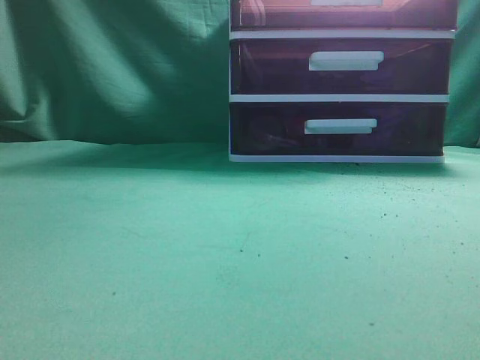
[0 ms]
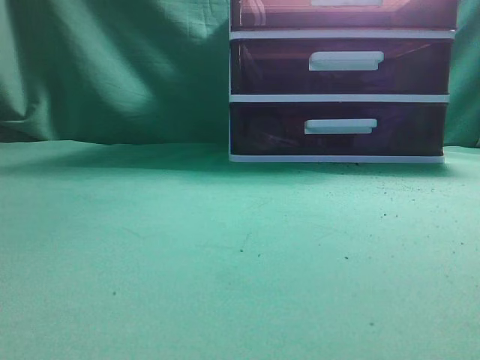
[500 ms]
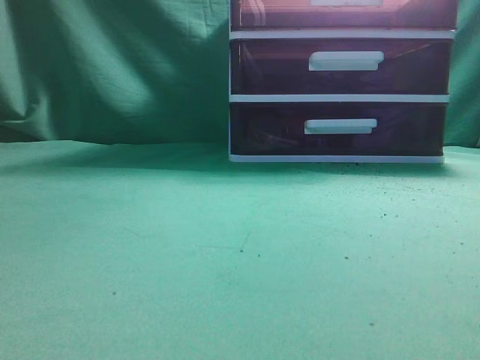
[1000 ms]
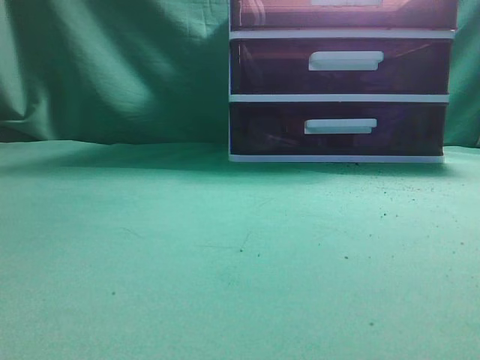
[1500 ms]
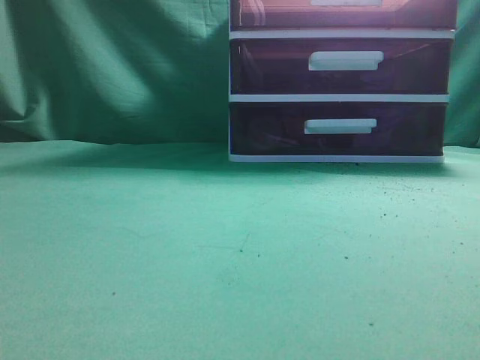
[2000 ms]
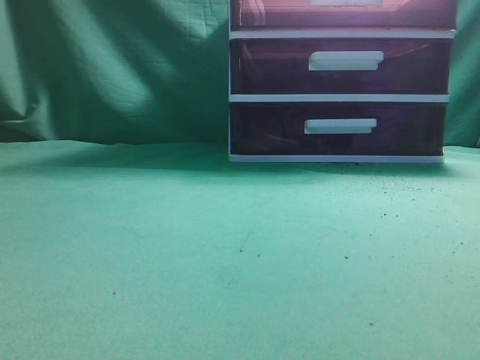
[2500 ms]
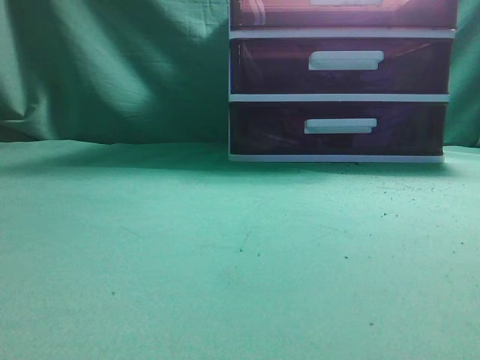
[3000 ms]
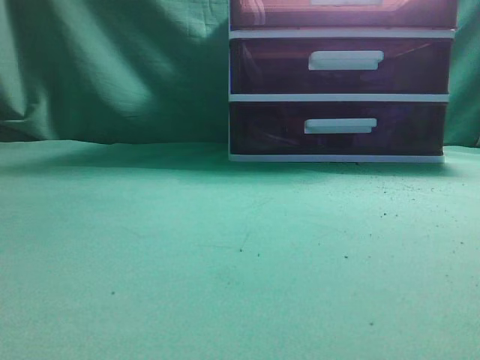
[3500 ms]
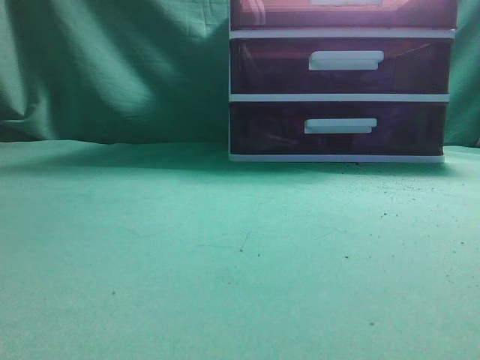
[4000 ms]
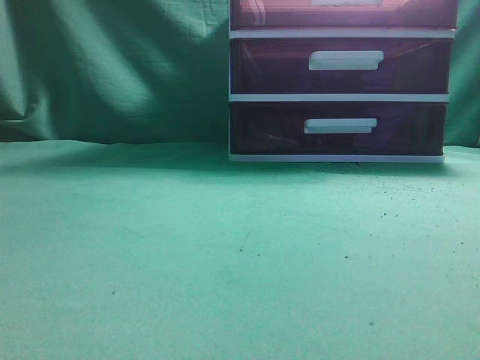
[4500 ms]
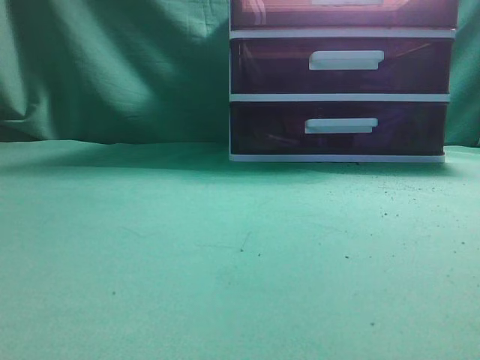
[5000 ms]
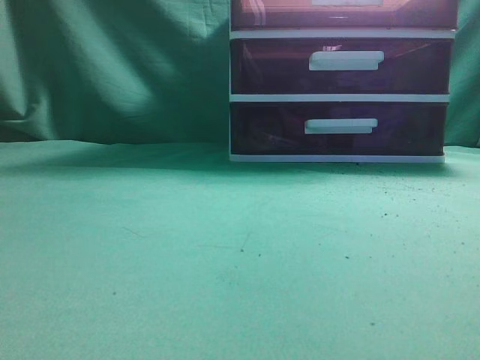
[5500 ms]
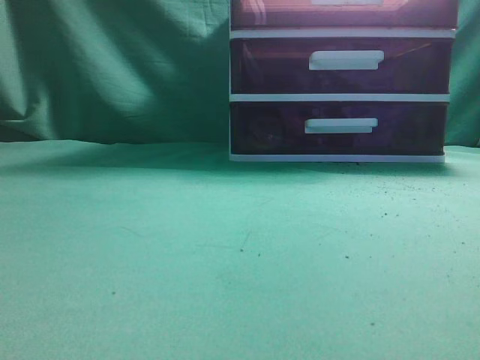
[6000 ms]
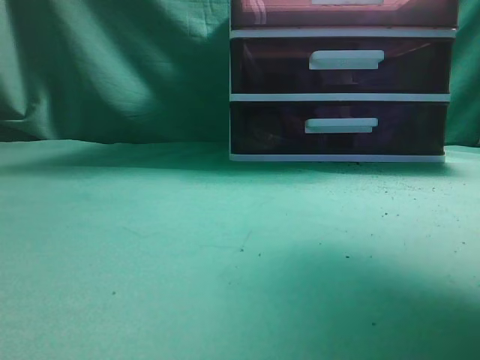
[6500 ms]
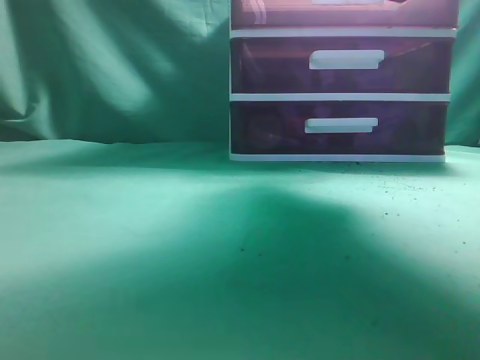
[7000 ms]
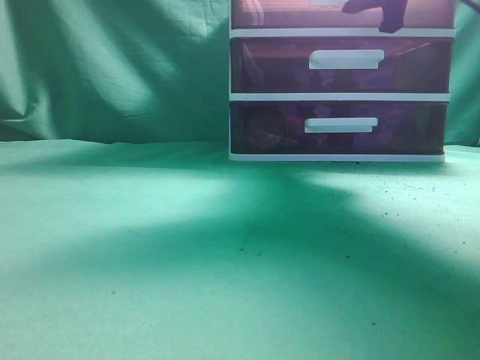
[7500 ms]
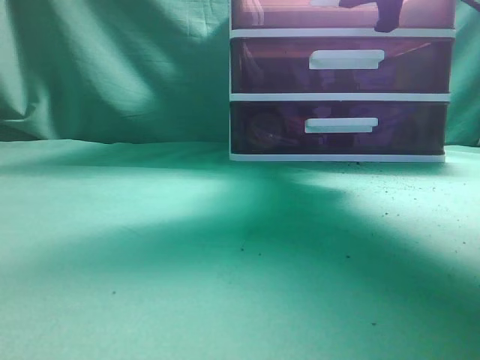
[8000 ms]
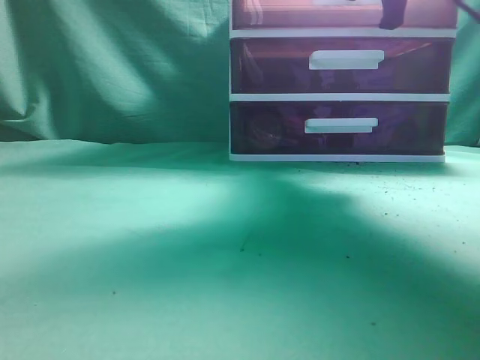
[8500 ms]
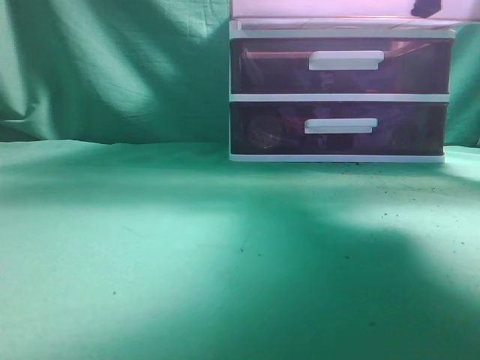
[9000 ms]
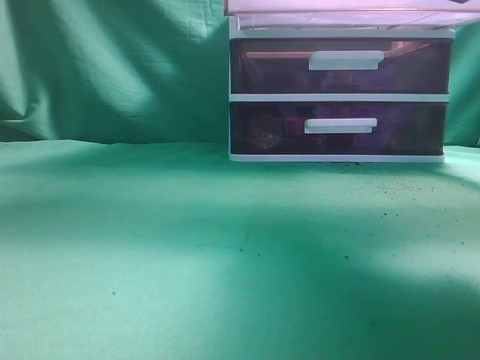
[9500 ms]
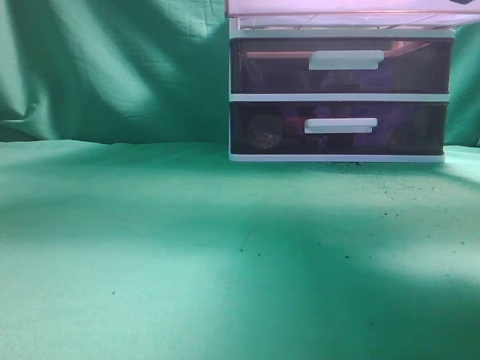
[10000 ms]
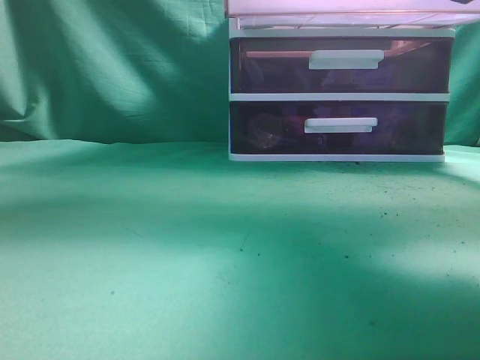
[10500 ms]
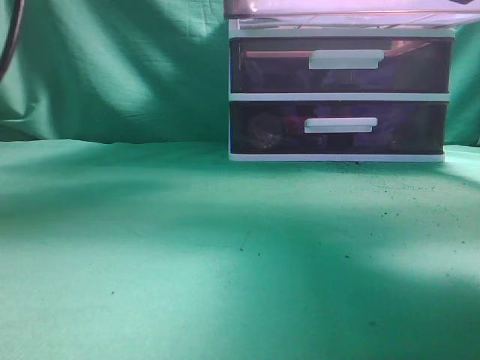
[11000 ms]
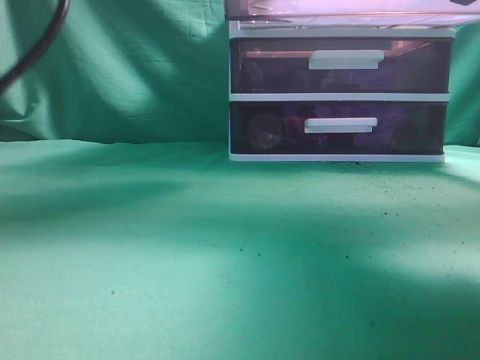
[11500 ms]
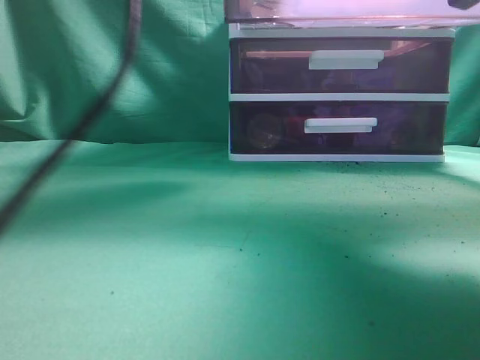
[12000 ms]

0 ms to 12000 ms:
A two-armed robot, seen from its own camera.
Task of the whole recording: place the water bottle into the drawer.
Step, 0 ms to 10000 ms: Open the drawer.
6000 ms to 8000 ms: The right gripper is displaced forward by roughly 30 cm, and opens its fingers.
8000 ms to 10000 ms: The right gripper is displaced backward by approximately 15 cm, while the left gripper travels upward, to the right and forward by roughly 15 cm.
10000 ms to 12000 ms: The left gripper travels forward, to the right and downward by about 30 cm, and opens up.

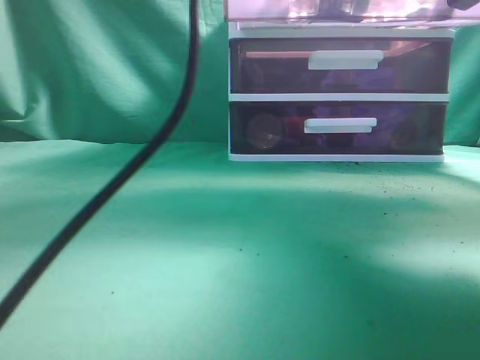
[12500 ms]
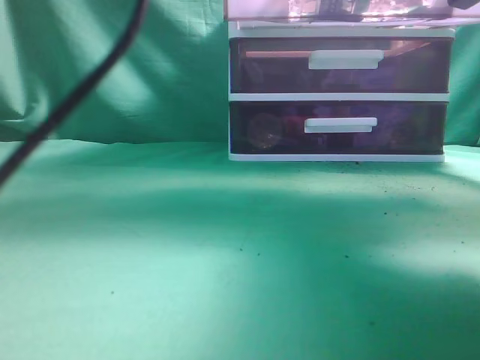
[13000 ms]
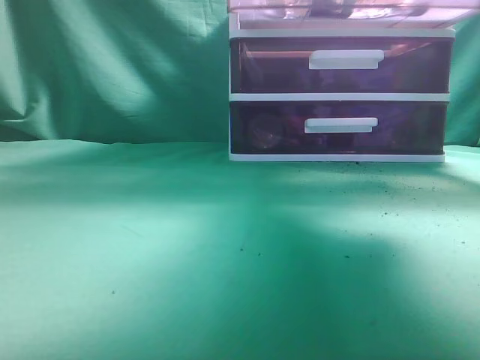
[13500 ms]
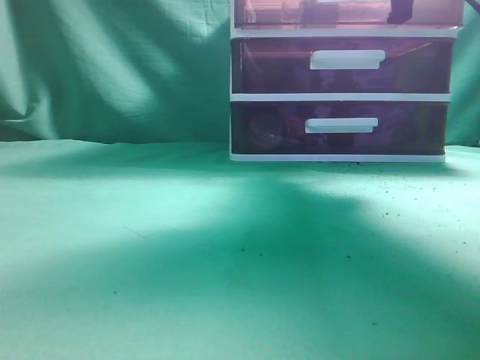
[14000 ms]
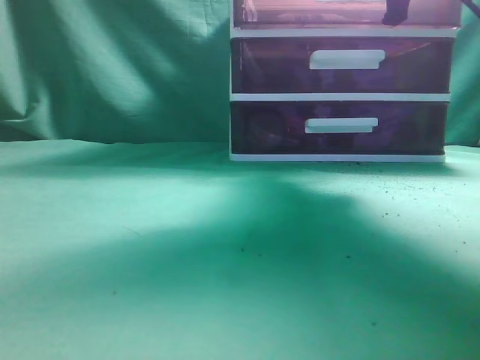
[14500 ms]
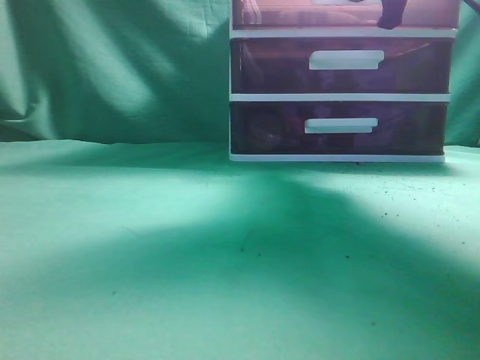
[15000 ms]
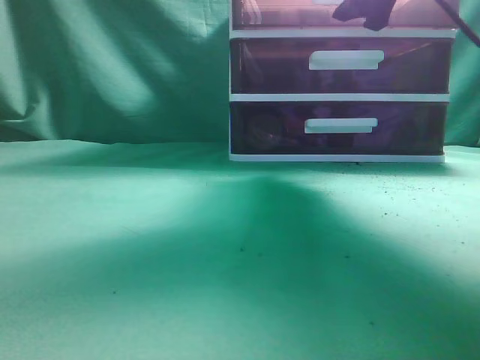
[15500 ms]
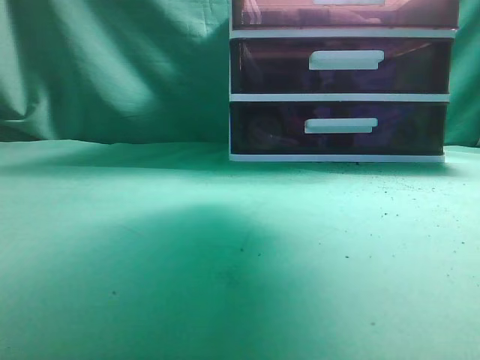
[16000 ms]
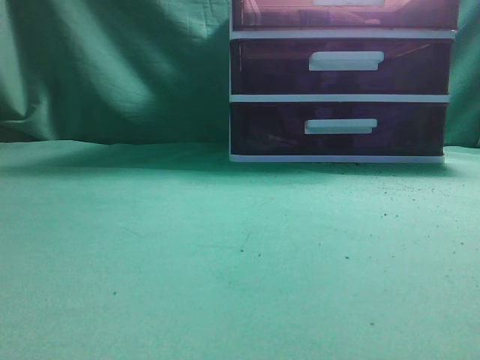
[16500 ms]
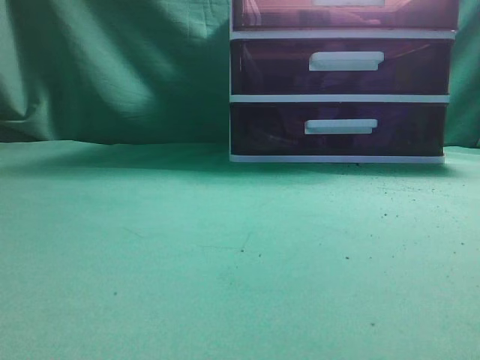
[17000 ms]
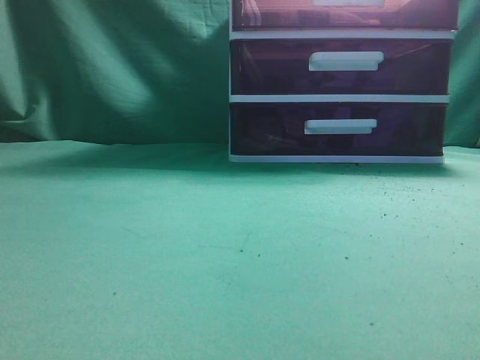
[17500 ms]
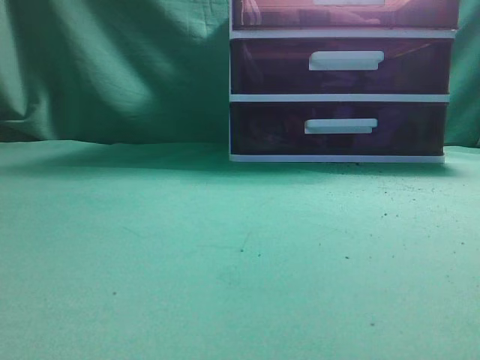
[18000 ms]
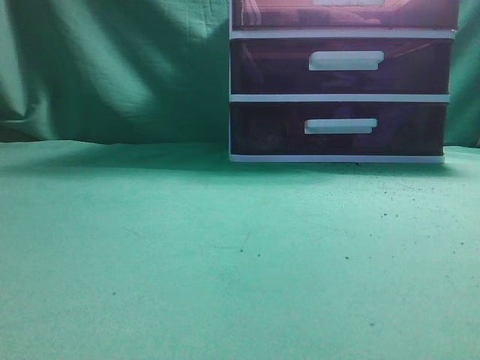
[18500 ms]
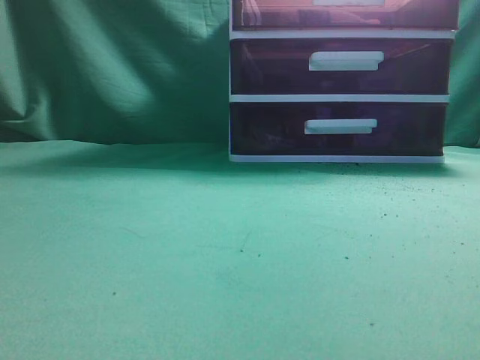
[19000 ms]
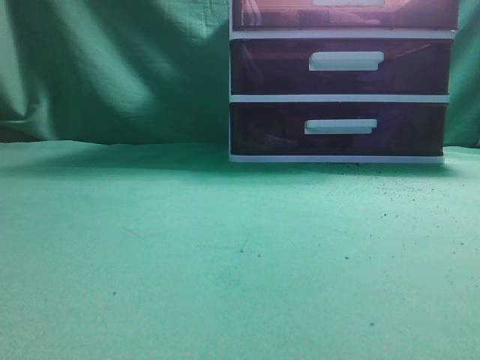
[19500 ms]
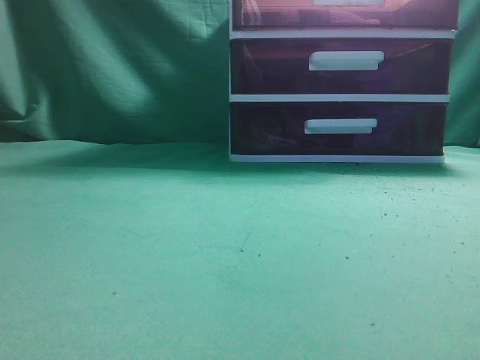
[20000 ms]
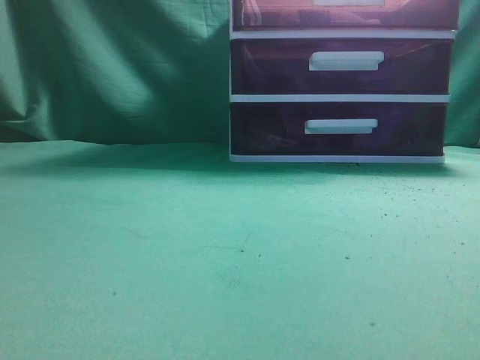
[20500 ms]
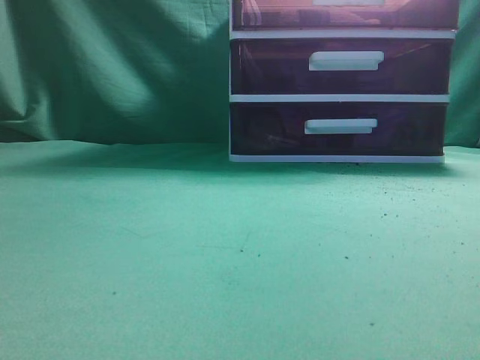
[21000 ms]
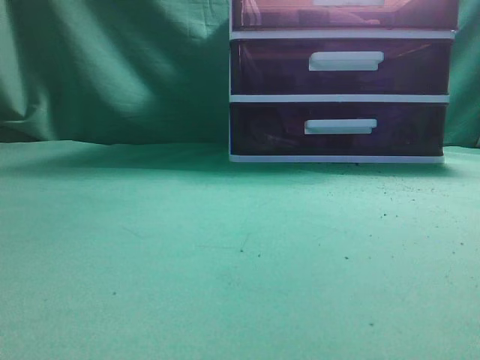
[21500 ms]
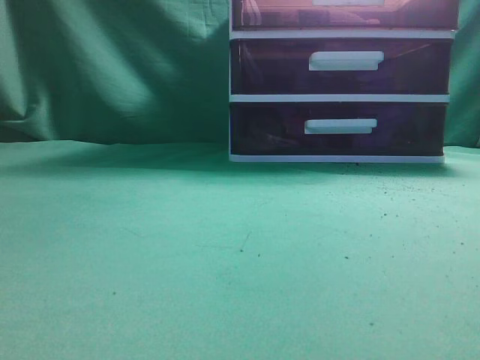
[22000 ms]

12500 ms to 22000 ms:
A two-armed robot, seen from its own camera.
Task of the whole recording: place the water bottle into the drawer.
Step, 13000 ms to 15500 ms: Close the drawer.
12500 ms to 14500 ms: The left gripper is displaced backward and to the left by approximately 35 cm, and closes up, while the right gripper travels forward by some 15 cm.
14500 ms to 16500 ms: The right gripper moves backward and upward, approximately 25 cm, and opens, then closes again; the left gripper travels backward and to the left by about 10 cm.
